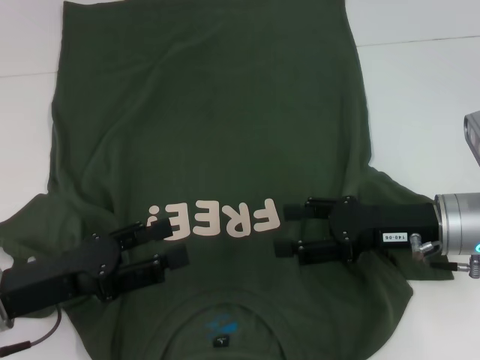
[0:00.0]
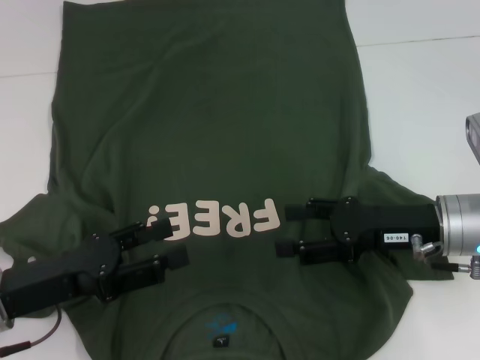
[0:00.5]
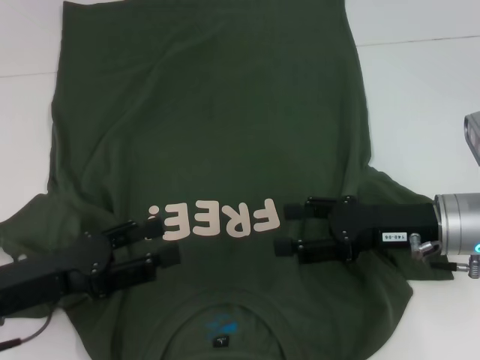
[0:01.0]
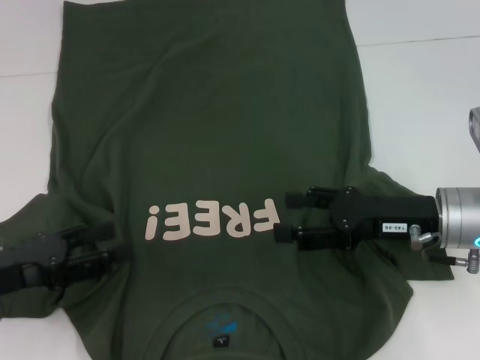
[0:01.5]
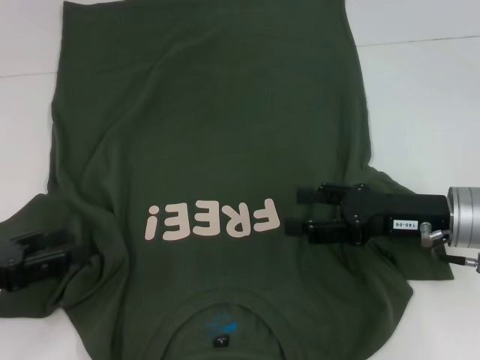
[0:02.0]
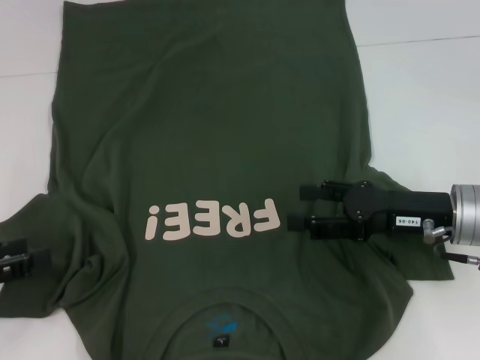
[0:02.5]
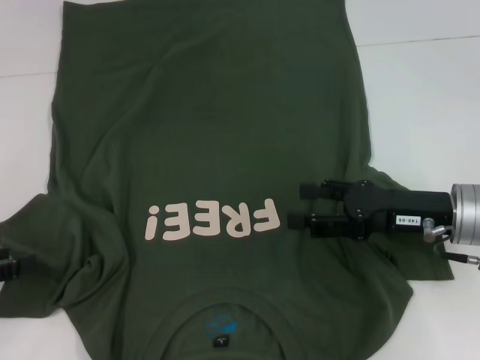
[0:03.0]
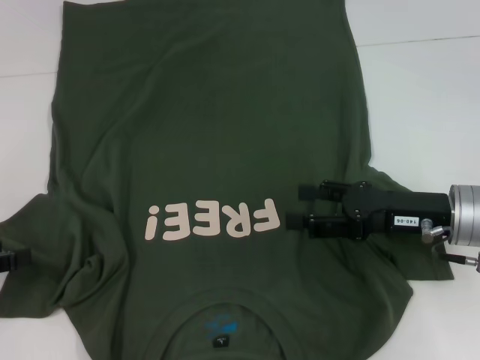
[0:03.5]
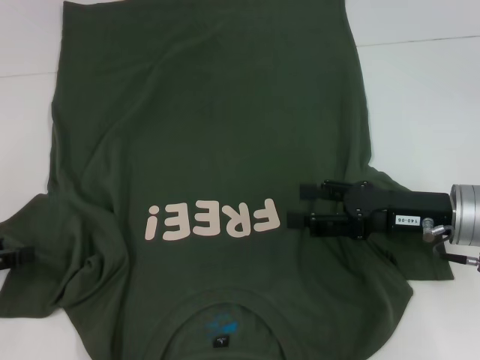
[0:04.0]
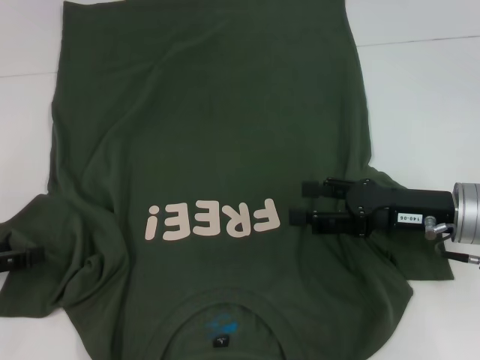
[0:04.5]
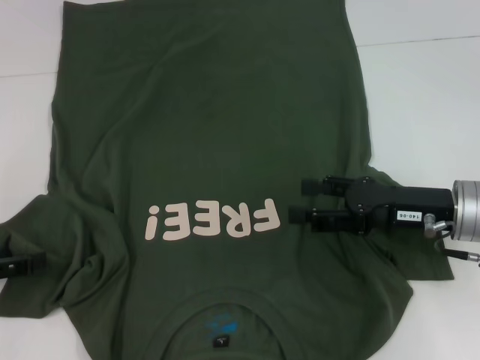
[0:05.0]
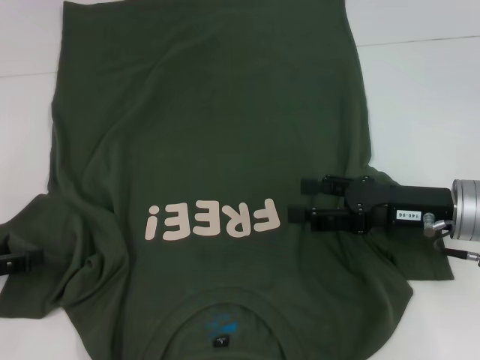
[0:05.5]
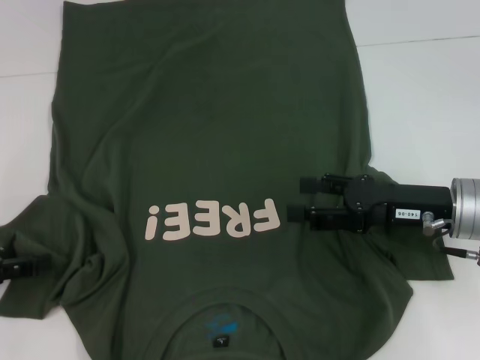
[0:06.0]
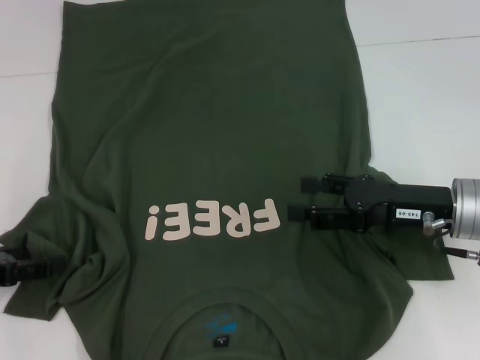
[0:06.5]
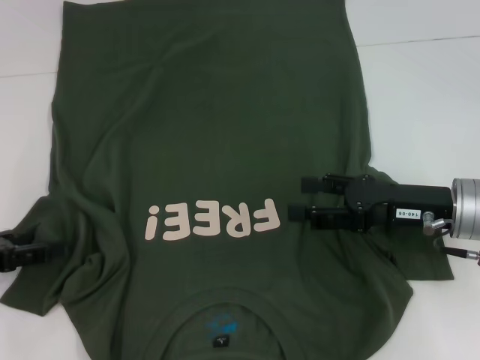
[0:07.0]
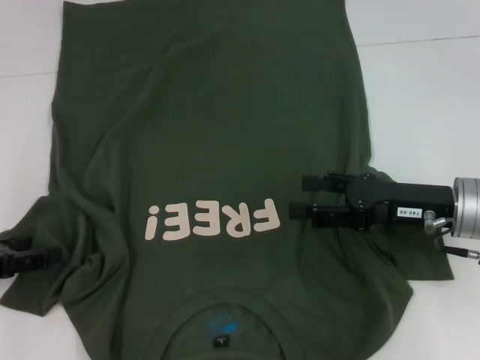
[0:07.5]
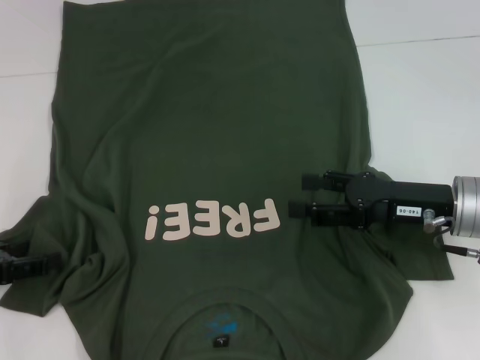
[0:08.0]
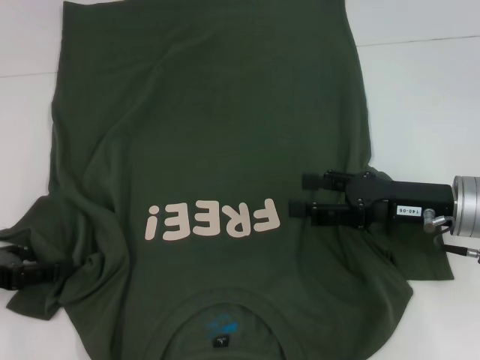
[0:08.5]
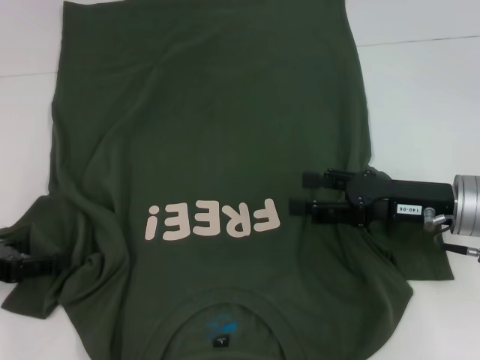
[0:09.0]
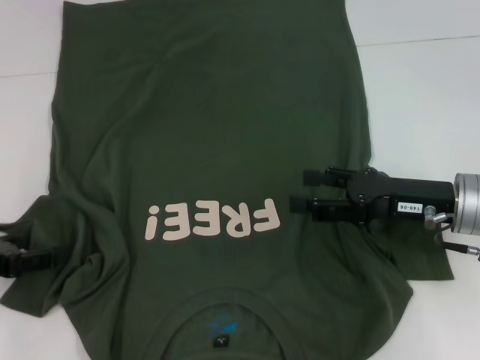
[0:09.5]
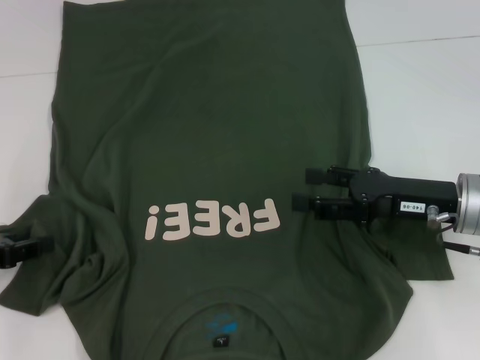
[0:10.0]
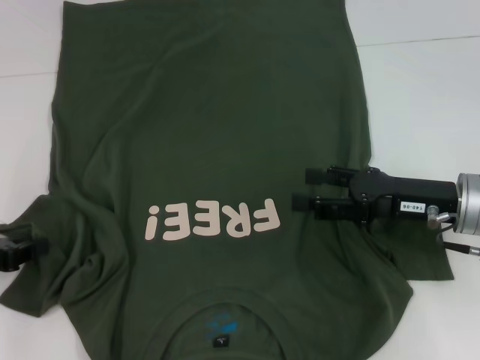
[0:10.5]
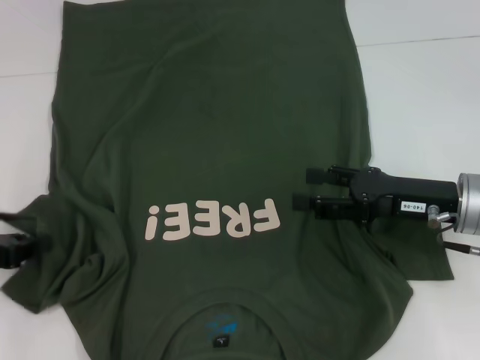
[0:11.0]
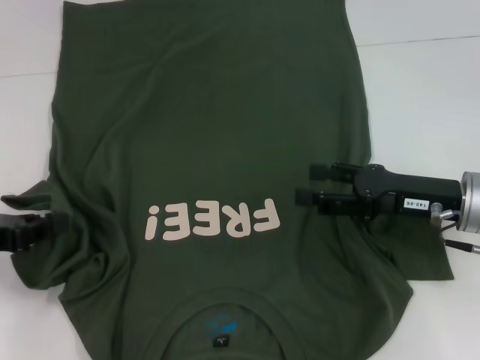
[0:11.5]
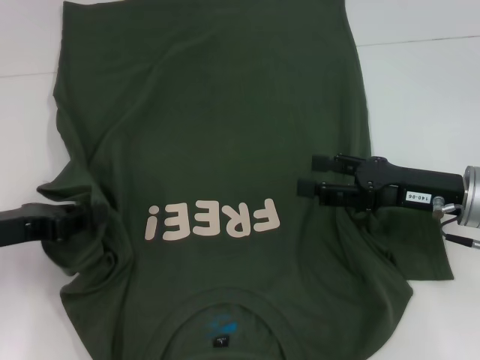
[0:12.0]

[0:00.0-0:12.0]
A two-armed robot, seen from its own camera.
0:00.0 to 0:02.0: The left gripper shifts roughly 10 cm to the left.
0:04.0 to 0:08.0: The grippers move only a little.
0:08.0 to 0:10.0: The two grippers keep their place.
0:10.0 to 0:12.0: The left gripper shifts by some 5 cm, and closes up.

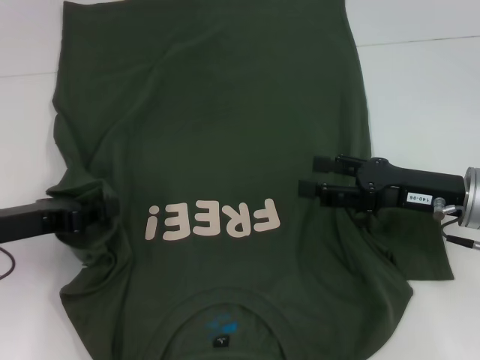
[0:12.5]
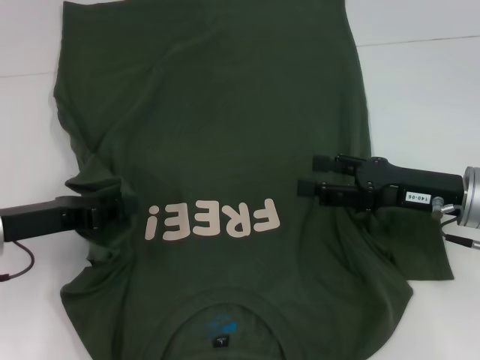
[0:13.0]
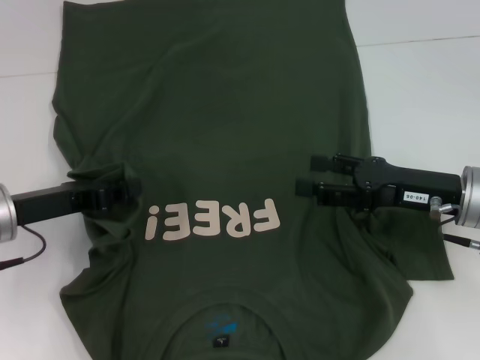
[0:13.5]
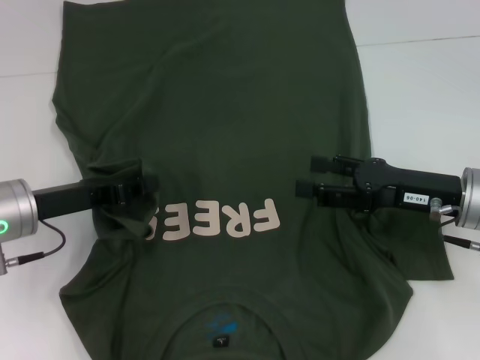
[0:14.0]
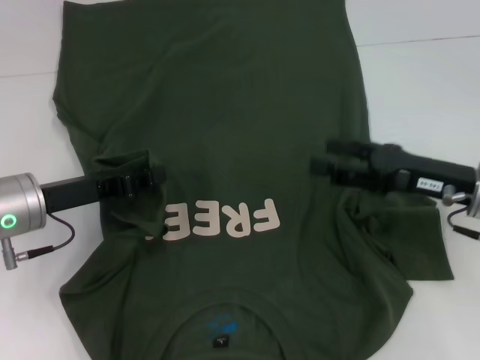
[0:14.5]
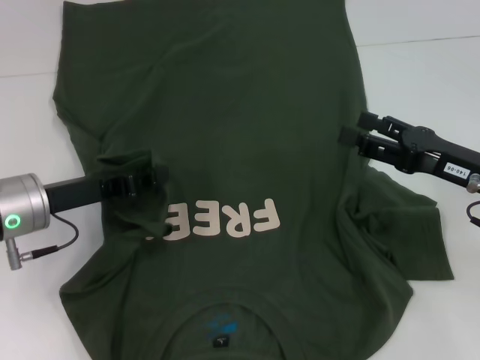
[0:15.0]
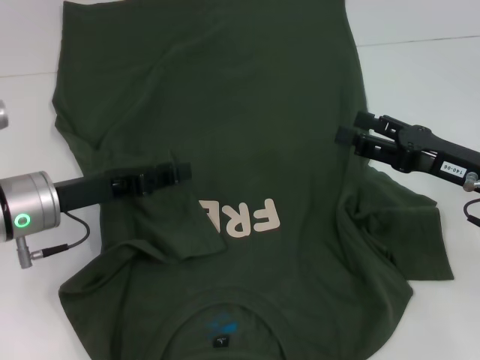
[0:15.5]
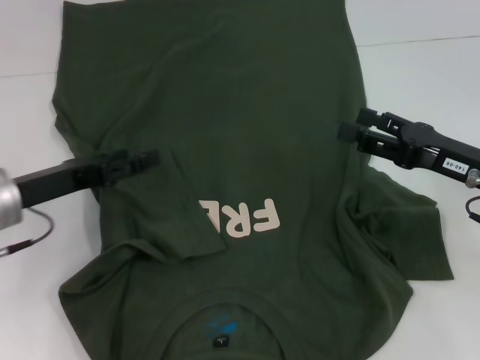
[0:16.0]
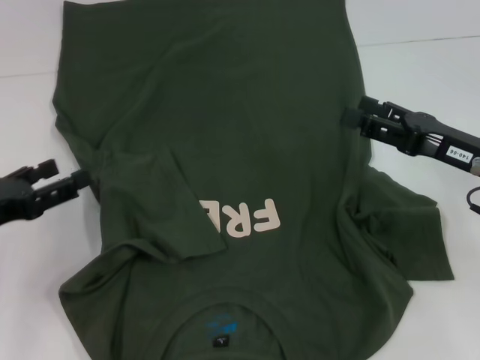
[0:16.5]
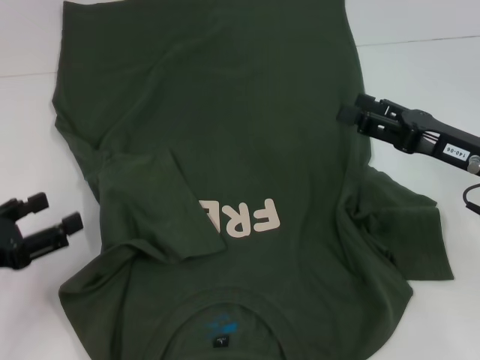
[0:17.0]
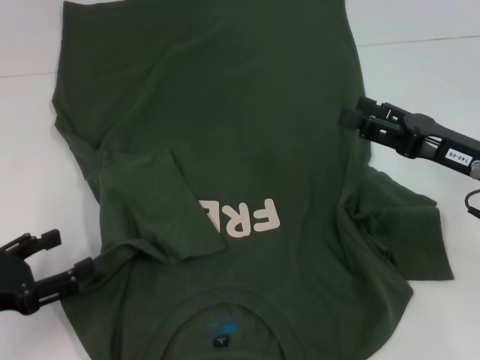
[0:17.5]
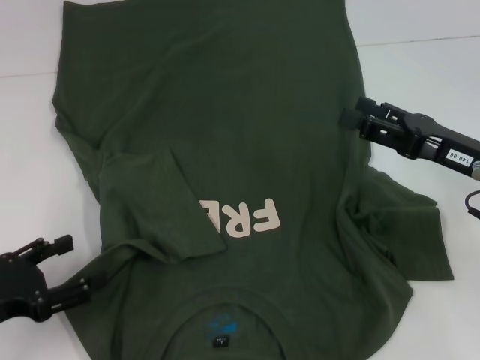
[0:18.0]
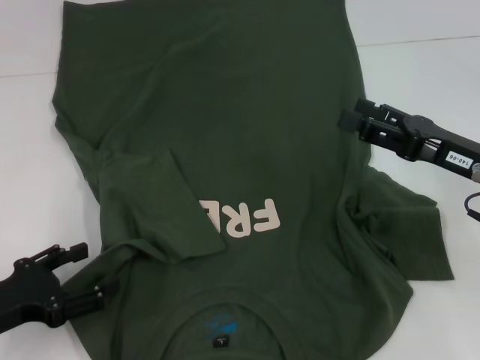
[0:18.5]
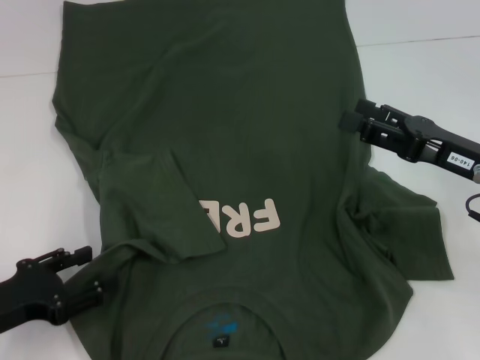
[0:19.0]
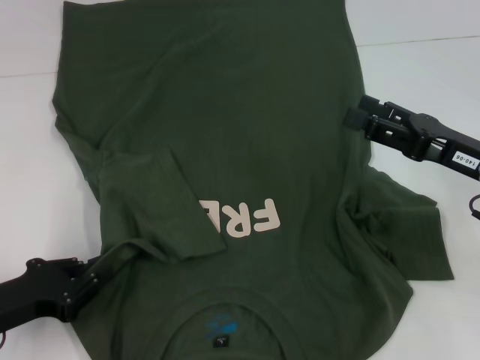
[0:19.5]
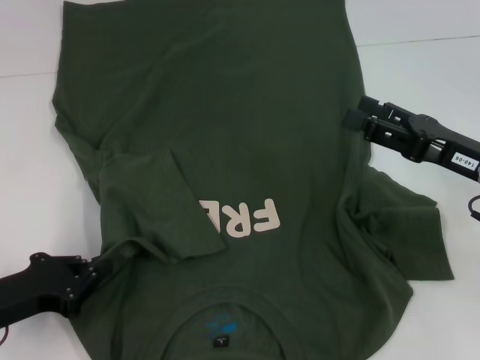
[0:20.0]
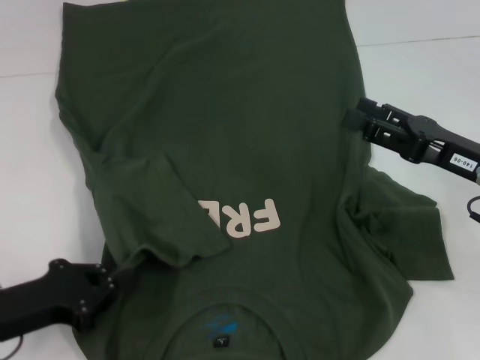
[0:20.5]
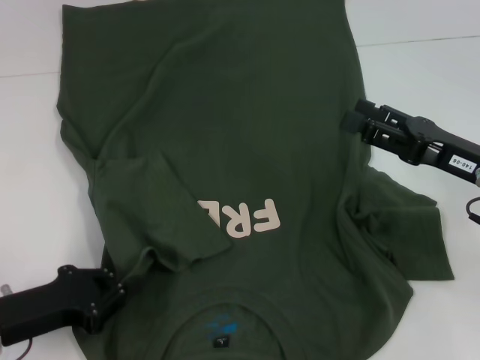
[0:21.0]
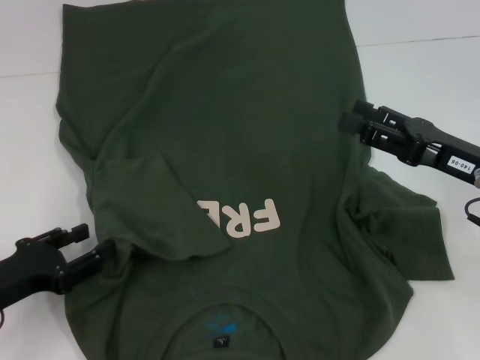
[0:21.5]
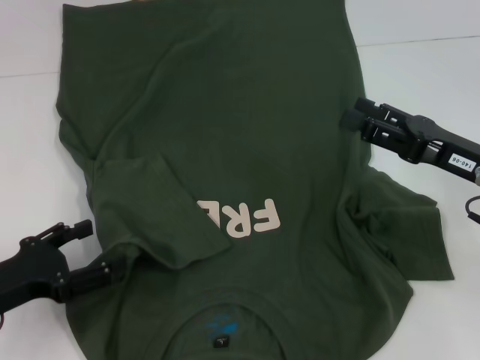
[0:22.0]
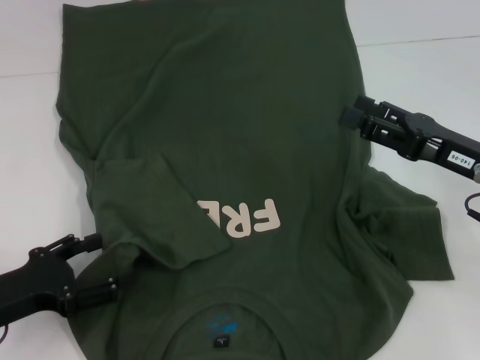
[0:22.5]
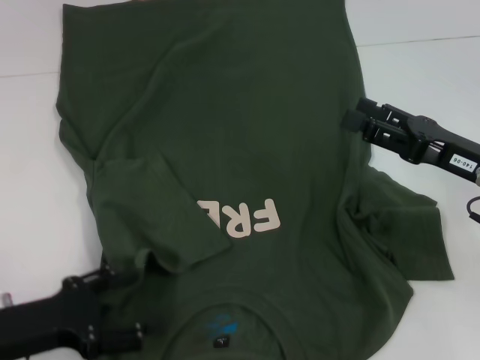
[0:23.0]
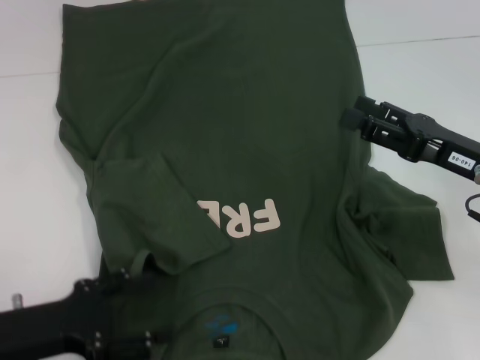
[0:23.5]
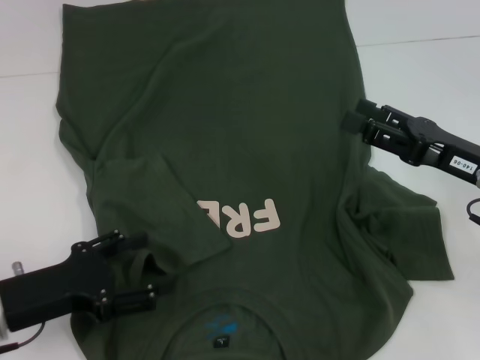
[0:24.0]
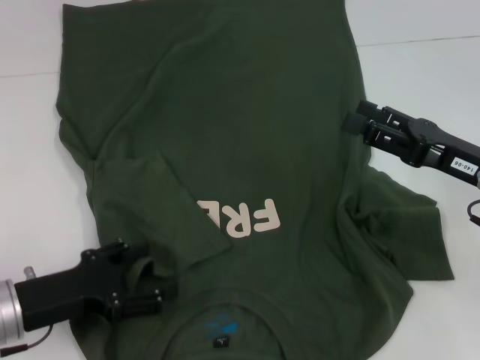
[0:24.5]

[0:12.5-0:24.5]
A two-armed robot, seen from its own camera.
Step, 0:12.5 to 0:24.0: Fold the bottom left sleeve with your left hand.
0:12.5 to 0:14.5: The left gripper ends up roughly 5 cm from where it was.
0:14.5 to 0:16.5: The left gripper travels to the left and backward by approximately 10 cm, and opens.
0:16.5 to 0:18.5: The left gripper moves backward, about 5 cm.
0:18.5 to 0:20.5: The left gripper closes.
0:20.5 to 0:22.5: The left gripper opens.
0:22.5 to 0:24.5: There are only small adjustments of the grippers.

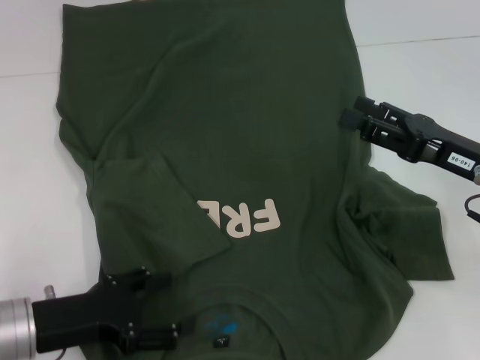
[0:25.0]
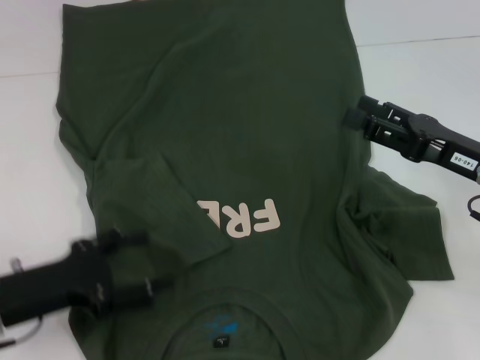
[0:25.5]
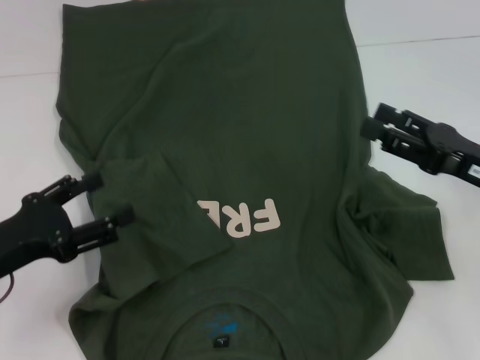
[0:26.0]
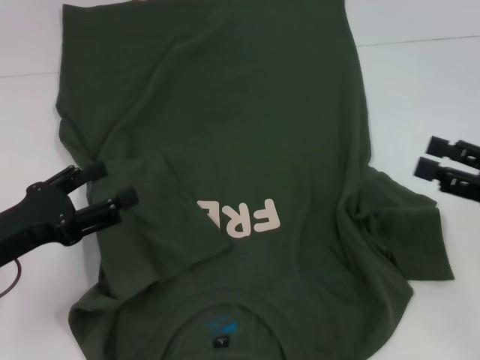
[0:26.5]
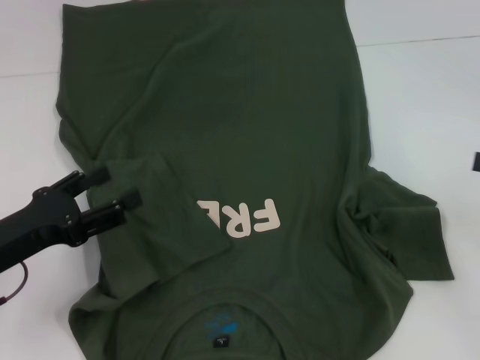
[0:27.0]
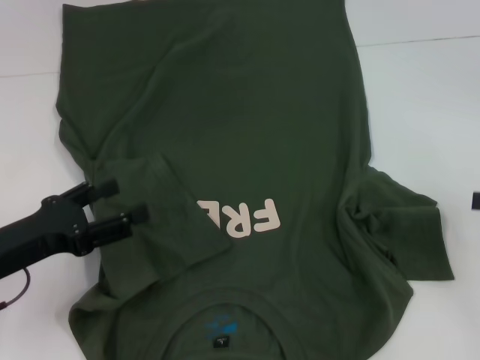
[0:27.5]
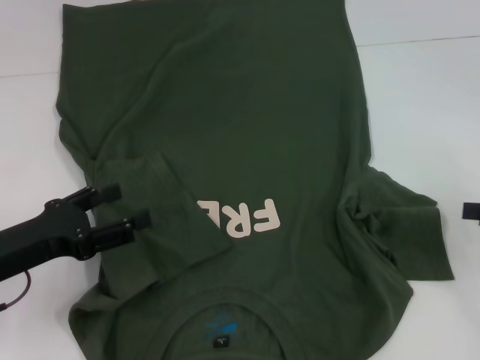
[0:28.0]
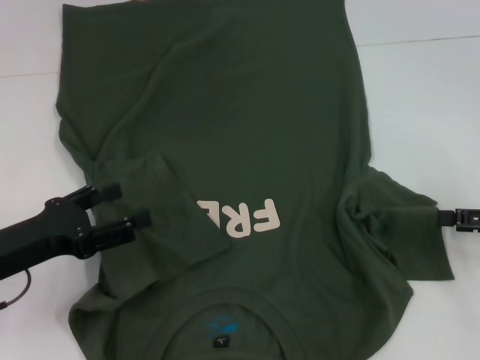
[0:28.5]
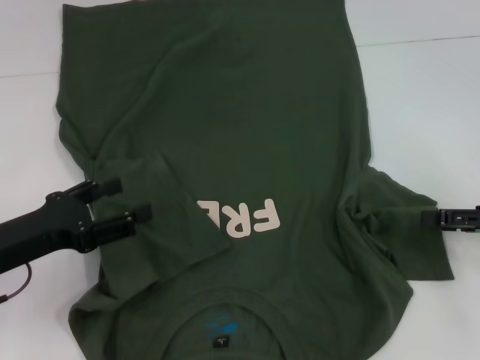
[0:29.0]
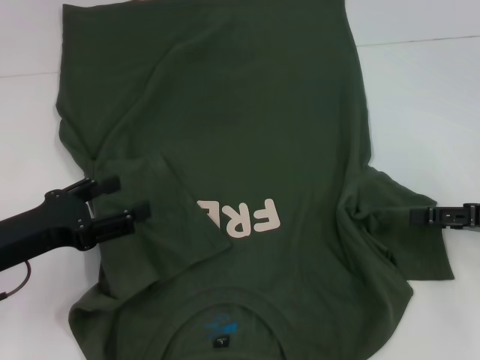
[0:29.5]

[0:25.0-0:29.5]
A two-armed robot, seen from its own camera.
0:25.0 to 0:27.0: The right gripper travels to the right, upward and backward by roughly 15 cm; the left gripper ends up about 5 cm from where it was.
0:27.0 to 0:29.5: The right gripper heads downward, covering approximately 5 cm.
